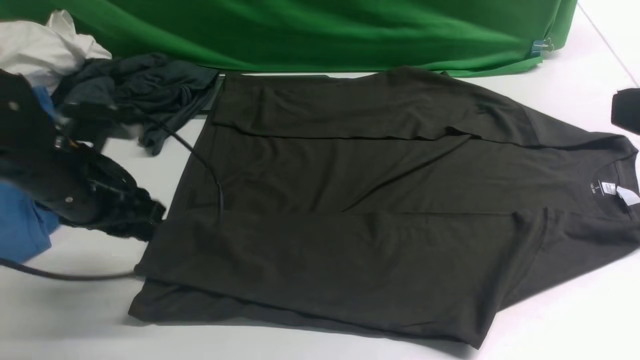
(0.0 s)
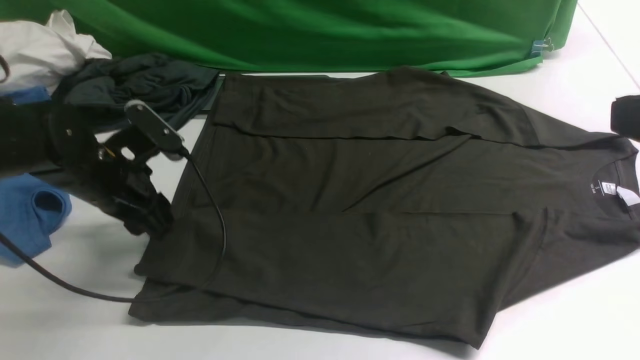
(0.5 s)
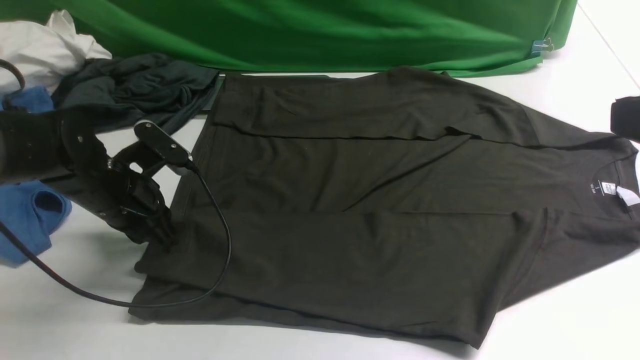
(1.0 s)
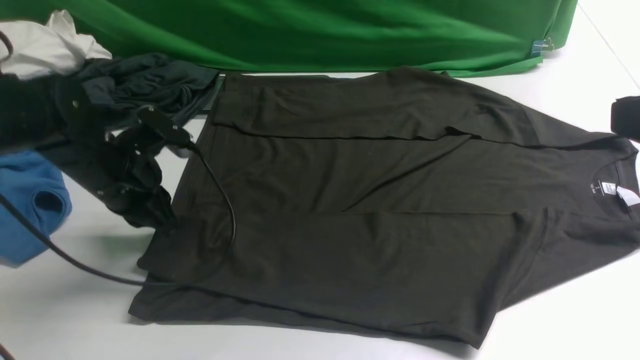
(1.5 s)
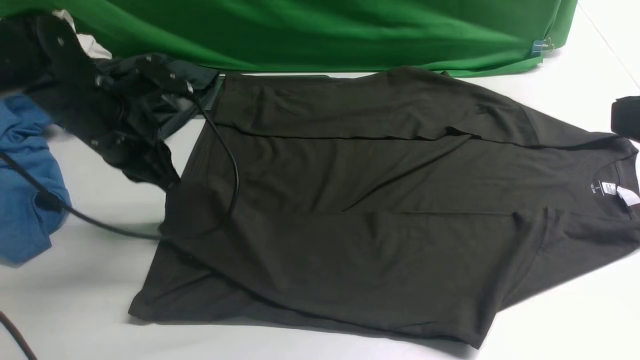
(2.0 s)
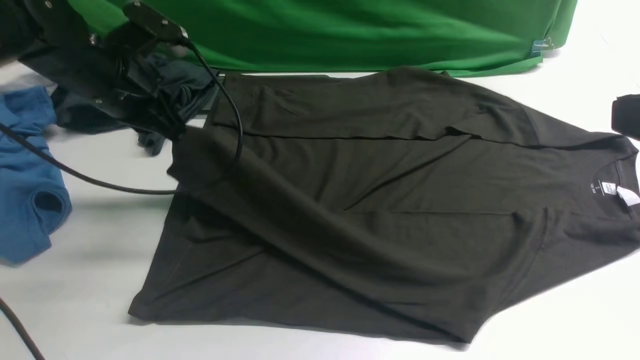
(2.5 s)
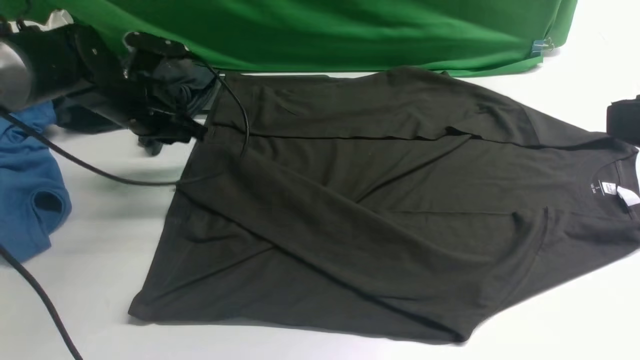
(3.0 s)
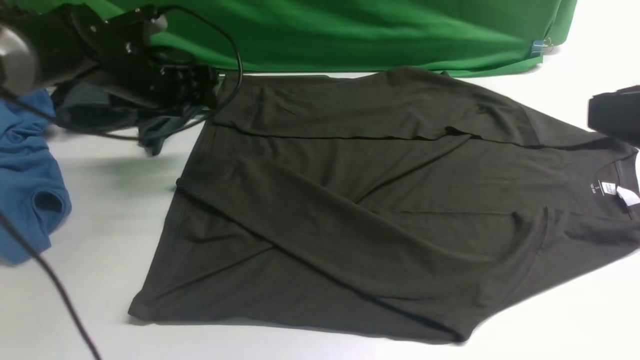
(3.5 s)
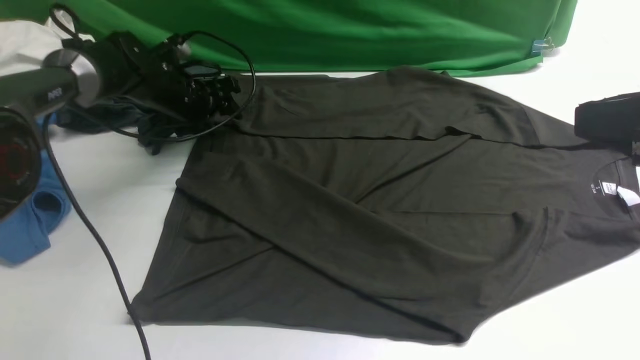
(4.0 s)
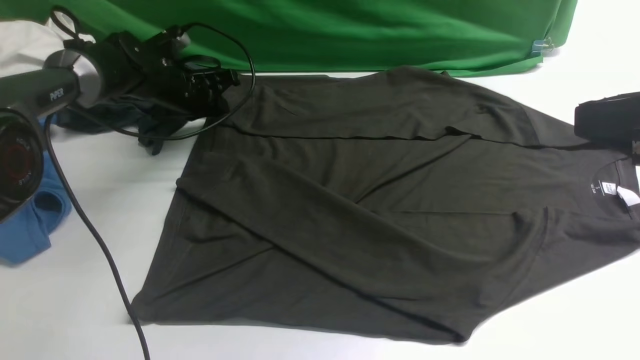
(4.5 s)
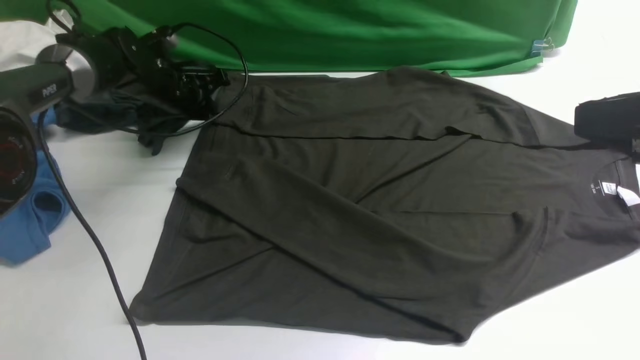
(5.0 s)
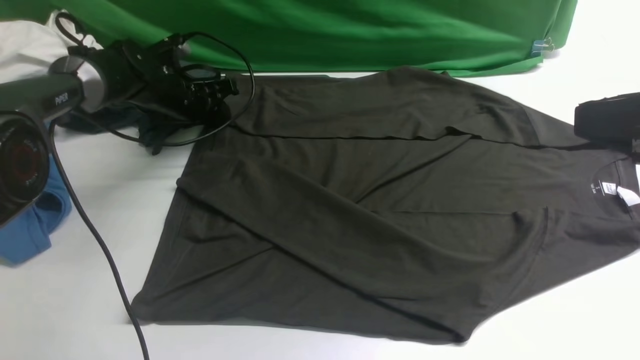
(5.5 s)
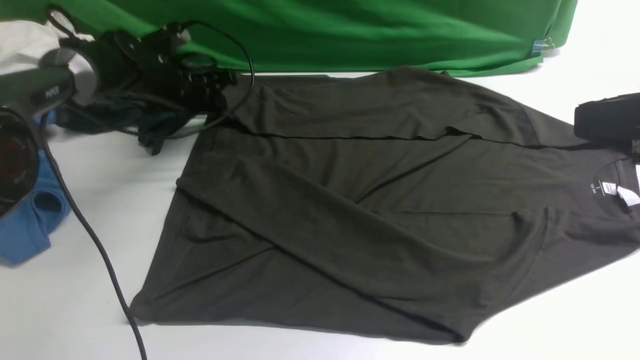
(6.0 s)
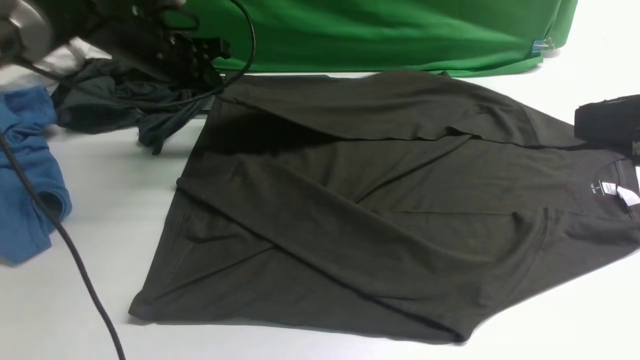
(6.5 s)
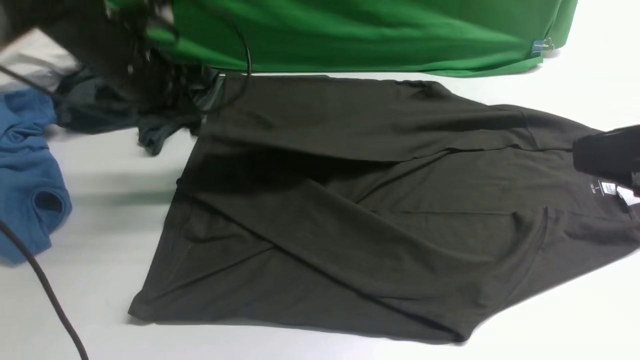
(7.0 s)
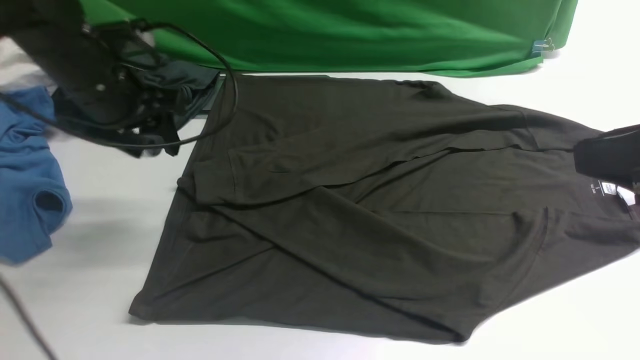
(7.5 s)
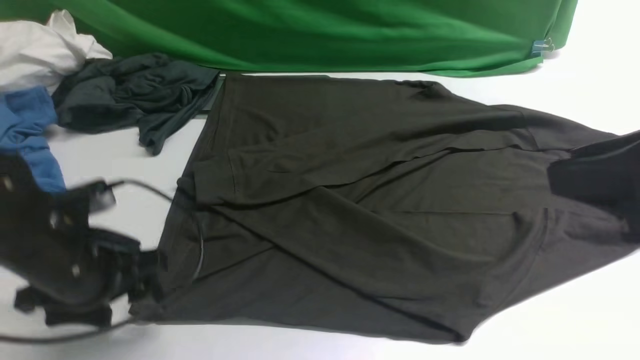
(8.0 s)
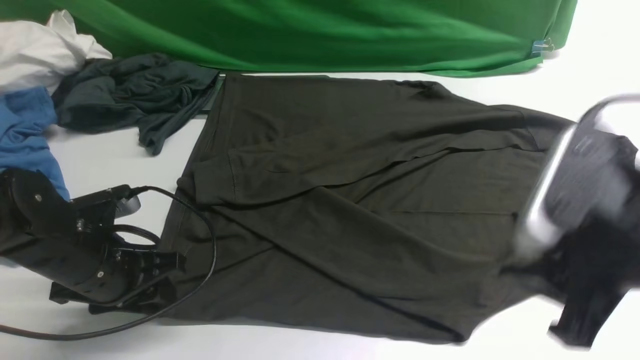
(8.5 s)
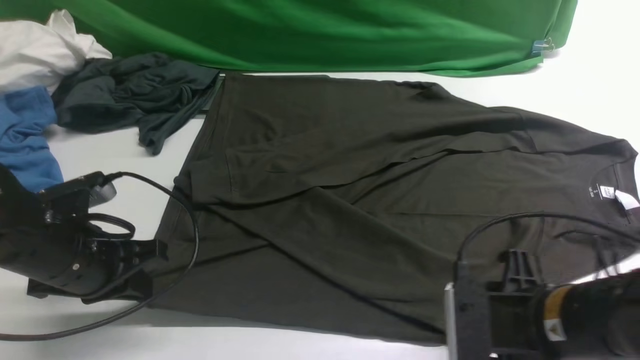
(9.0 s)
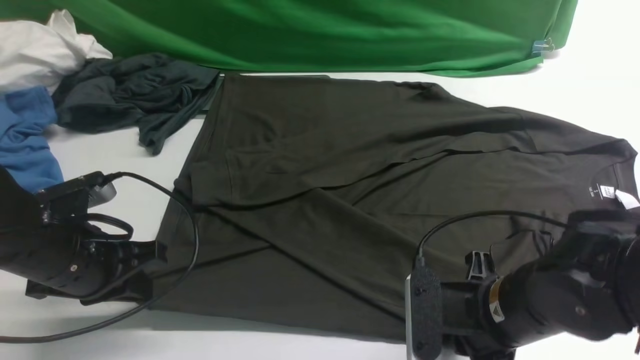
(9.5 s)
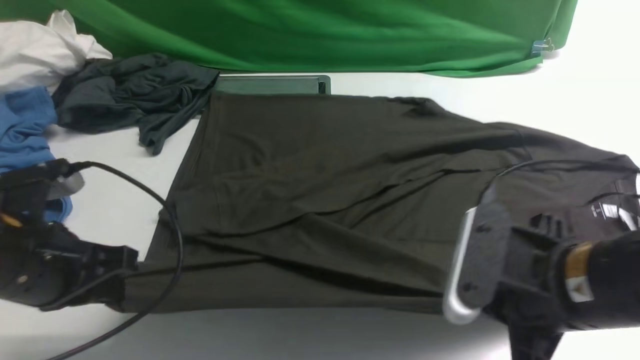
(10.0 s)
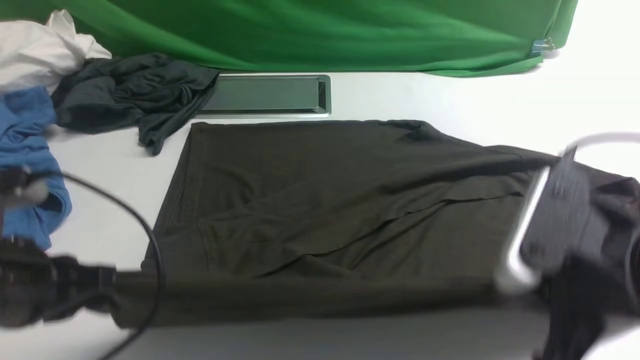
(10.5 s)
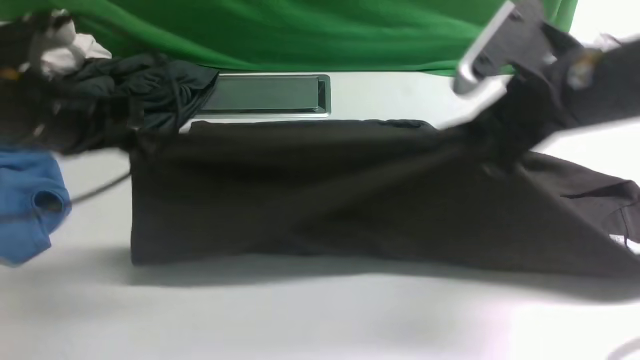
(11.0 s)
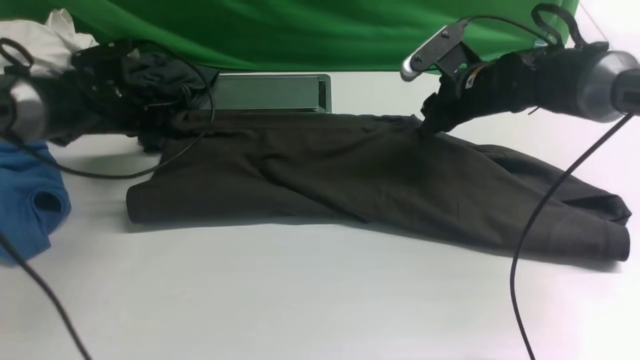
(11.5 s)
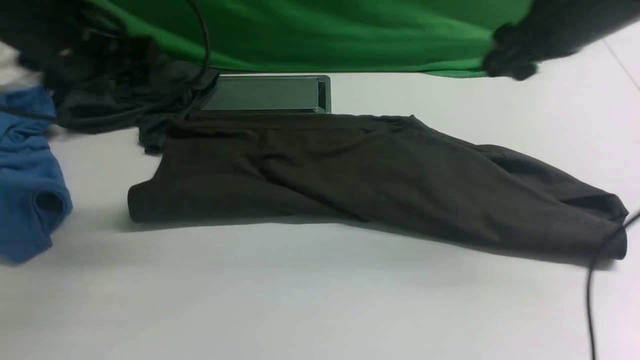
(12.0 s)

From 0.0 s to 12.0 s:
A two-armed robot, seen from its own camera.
Step, from 2.0 s to 3.0 s: use the left arm to drag and place the cuff at the centered position on the left edge of the fabric.
Step, from 3.5 s to 6.0 s: use the left arm to clamp the cuff farthest from it.
Step, from 6.5 s to 7.0 s: use the left arm to drag and drop the cuff onto the cuff closest to the left arm.
Step, from 7.5 s to 9.5 s: use both arms simultaneously to clamp the lower edge of the clothing fabric.
Step, from 10.5 s to 11.5 s: use both arms to drag the lower edge of the fabric forward and fold it over the upper edge.
From 0.0 s to 2.0 s: The left gripper travels forward by roughly 5 cm, and closes.
From 2.0 s to 4.0 s: The left gripper shifts approximately 15 cm forward and downward, and opens its fingers.
From 4.0 s to 6.0 s: The left gripper closes up.
From 6.0 s to 8.0 s: The left gripper goes about 25 cm backward, and opens.
From 8.0 s to 10.0 s: The left gripper shifts roughly 5 cm backward, and closes. Meanwhile the right gripper shifts about 15 cm downward and to the left, and closes its fingers.
From 10.0 s to 12.0 s: The right gripper heads forward and upward, covering about 20 cm, and opens, while the left gripper is displaced forward by approximately 20 cm, and opens its fingers.

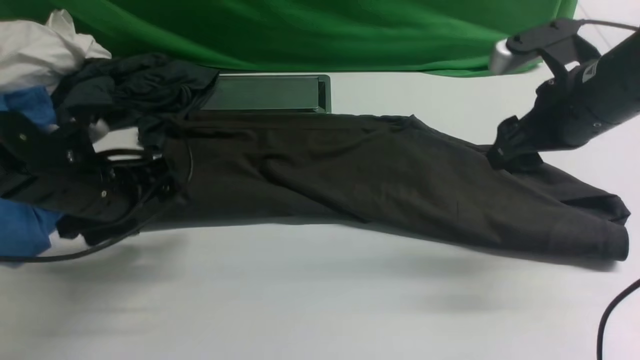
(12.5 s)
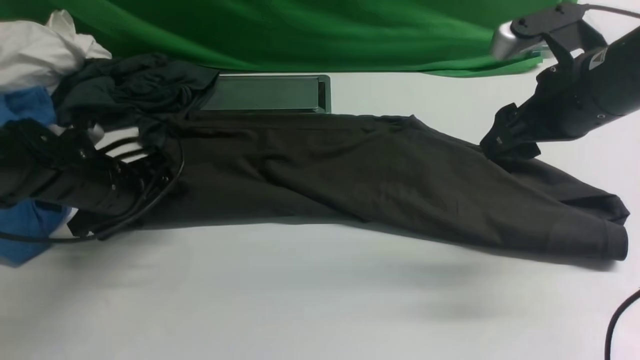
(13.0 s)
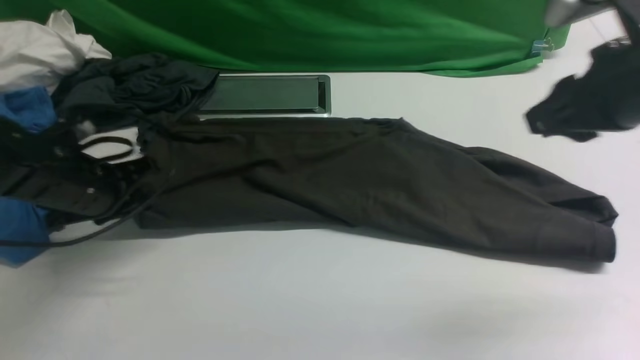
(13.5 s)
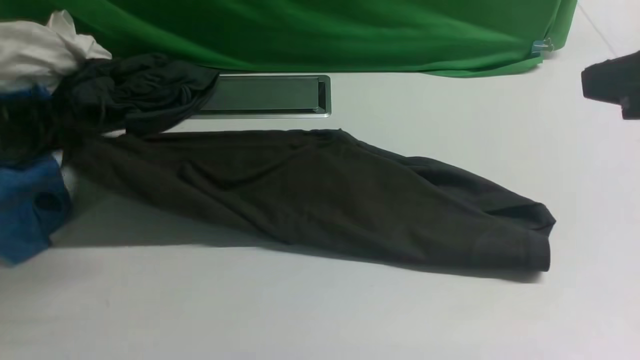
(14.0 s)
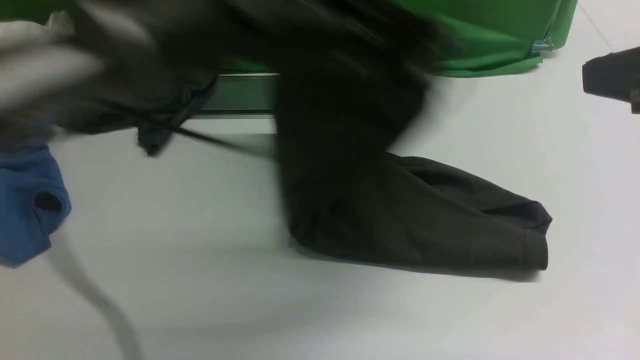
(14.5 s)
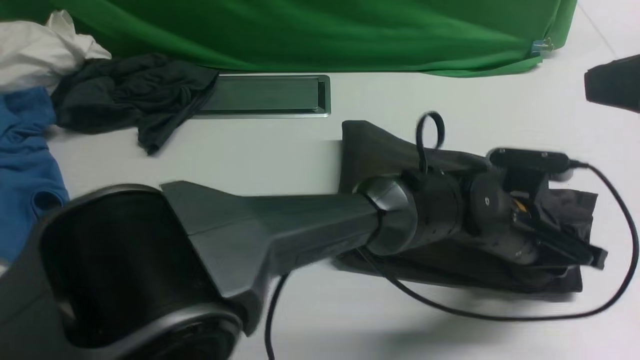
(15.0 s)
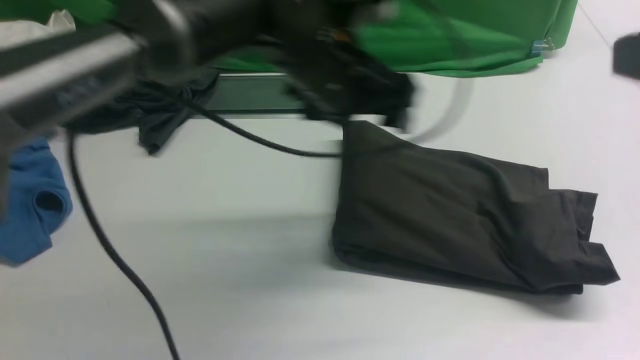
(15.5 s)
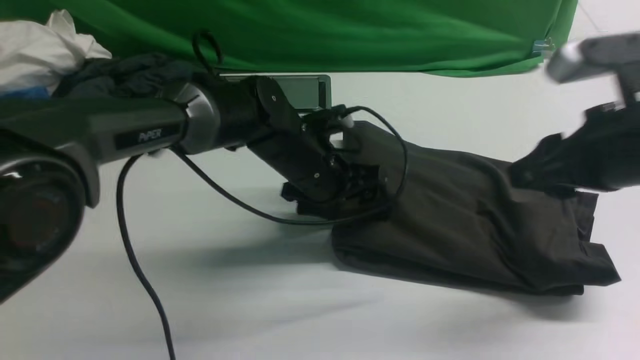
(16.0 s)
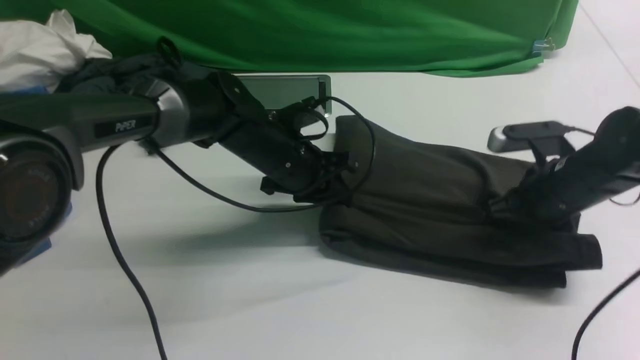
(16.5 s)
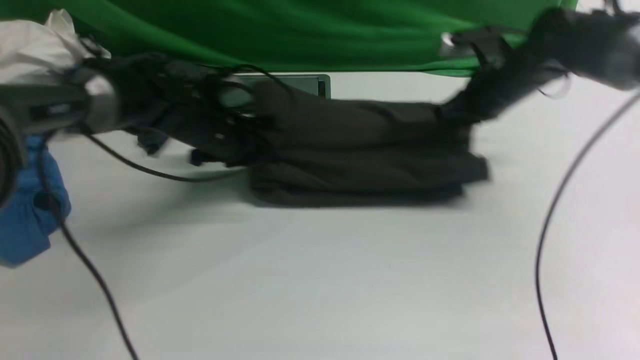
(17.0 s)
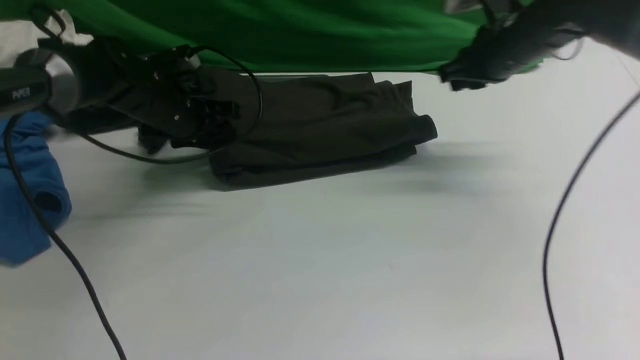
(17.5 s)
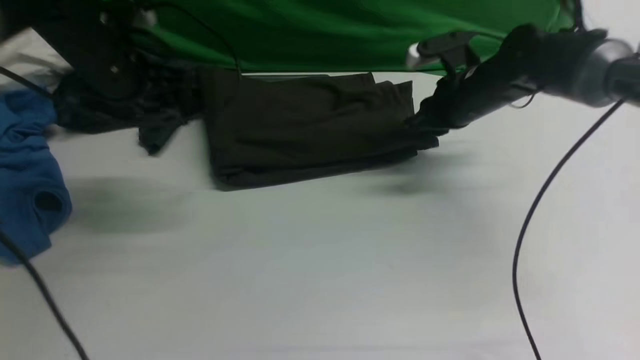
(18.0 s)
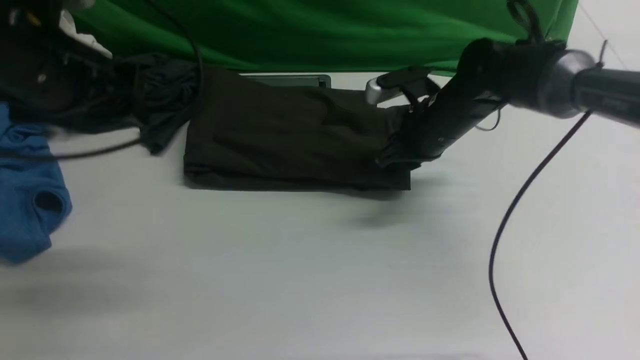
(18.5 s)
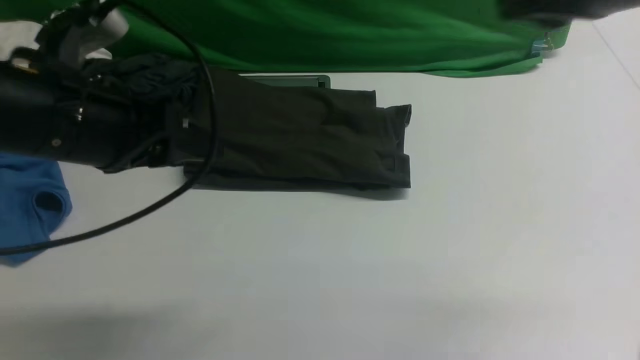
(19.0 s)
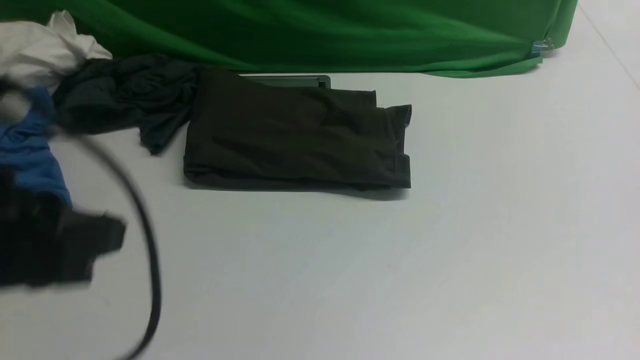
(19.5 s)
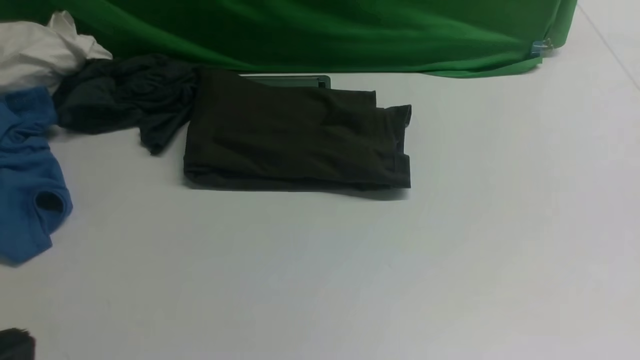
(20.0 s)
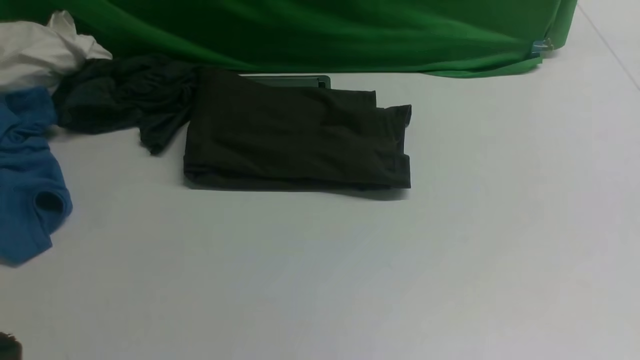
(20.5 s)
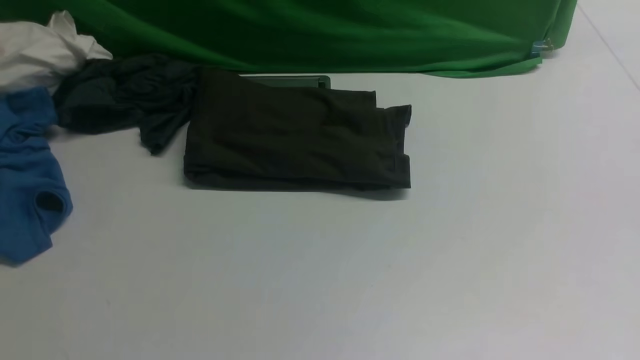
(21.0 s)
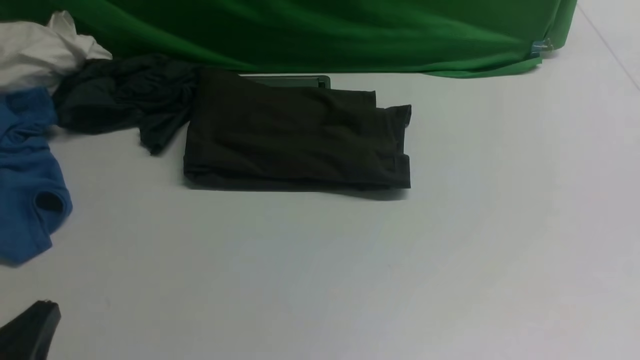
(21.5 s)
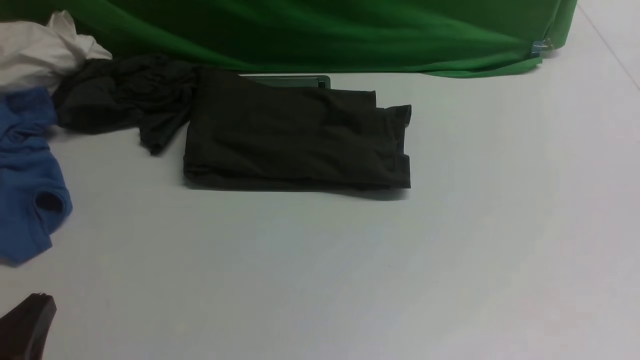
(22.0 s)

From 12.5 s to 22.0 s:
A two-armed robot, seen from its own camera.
Step, from 12.5 s to 13.5 s: Hold the left edge of the fabric with your left arm.
Step, from 14.0 s to 15.0 s: Drag the left edge of the fabric to the left with your left arm and fold it to the right edge.
From 12.5 s to 14.5 s: The right gripper shifts approximately 20 cm backward and upward, and closes. Meanwhile the left gripper moves to the right, some 25 cm, and closes.
From 14.5 s to 16.5 s: The left gripper heads downward and to the left, covering some 15 cm, and opens and closes again. The right gripper travels downward and forward by roughly 30 cm, and opens and closes again.
From 16.5 s to 18.0 s: The left gripper travels to the left and upward by about 20 cm, and opens. The right gripper is displaced forward and to the left by approximately 15 cm.
From 18.0 s to 20.0 s: Both grippers move backward, roughly 40 cm. The left gripper closes.
From 20.0 s to 22.0 s: The left gripper heads downward, covering approximately 15 cm.
